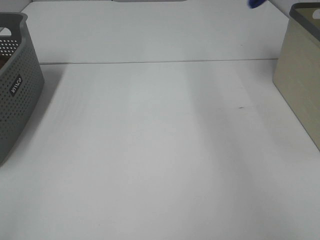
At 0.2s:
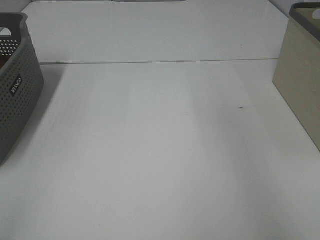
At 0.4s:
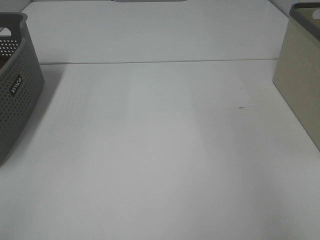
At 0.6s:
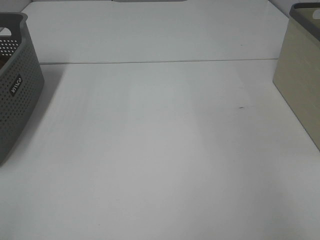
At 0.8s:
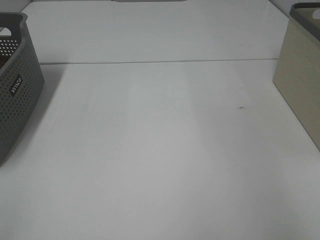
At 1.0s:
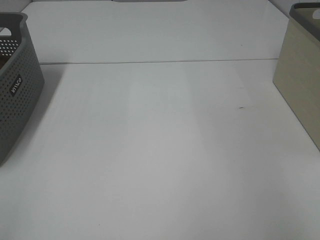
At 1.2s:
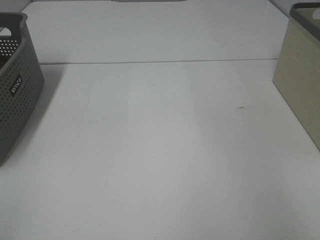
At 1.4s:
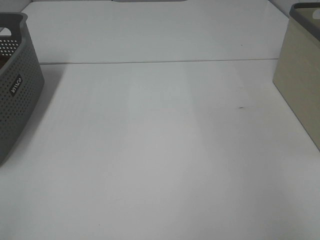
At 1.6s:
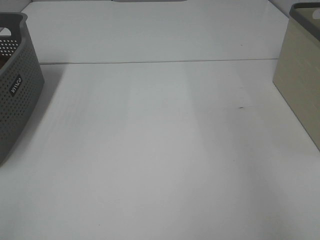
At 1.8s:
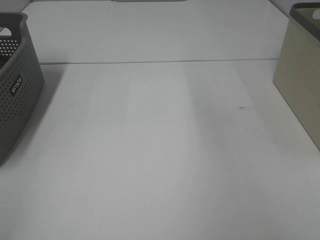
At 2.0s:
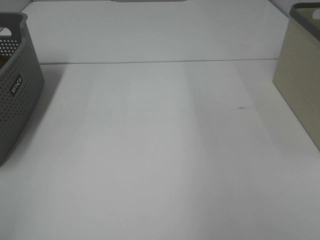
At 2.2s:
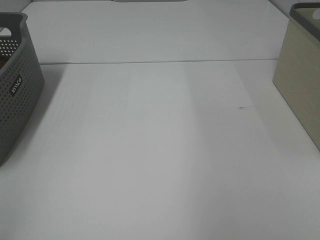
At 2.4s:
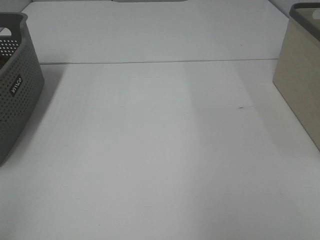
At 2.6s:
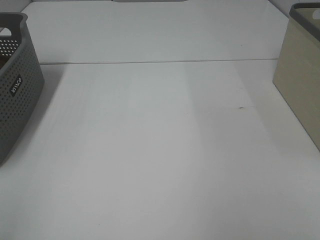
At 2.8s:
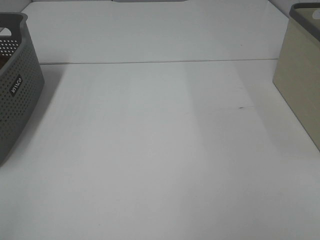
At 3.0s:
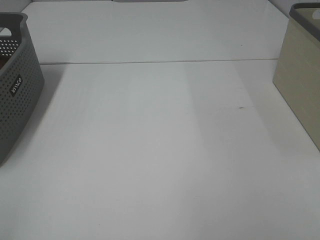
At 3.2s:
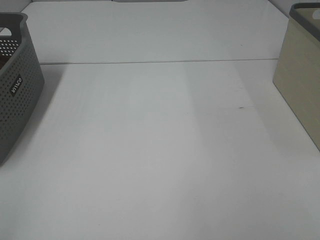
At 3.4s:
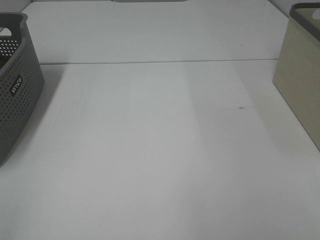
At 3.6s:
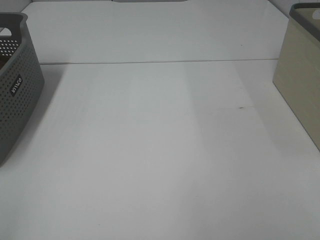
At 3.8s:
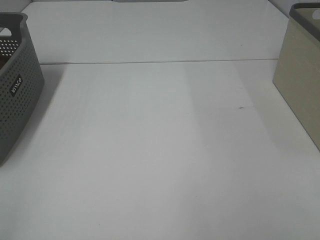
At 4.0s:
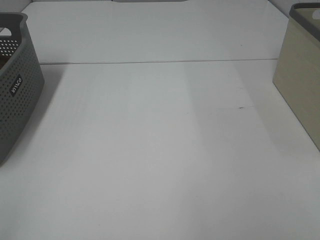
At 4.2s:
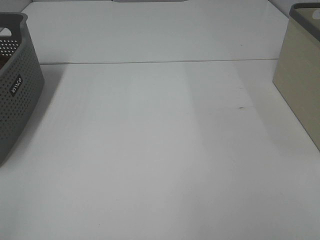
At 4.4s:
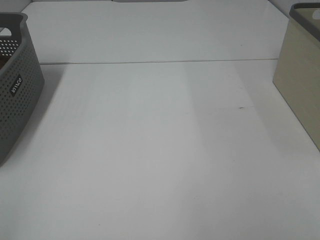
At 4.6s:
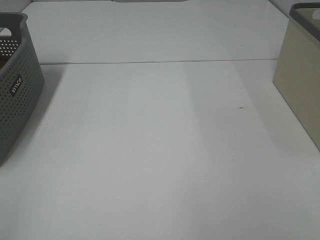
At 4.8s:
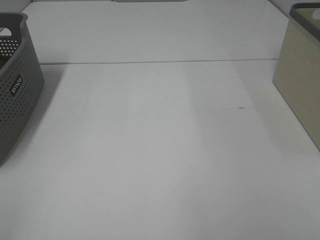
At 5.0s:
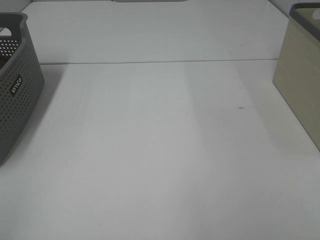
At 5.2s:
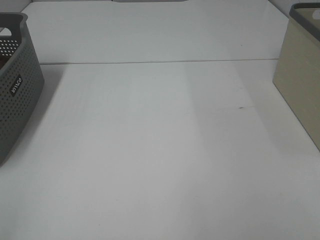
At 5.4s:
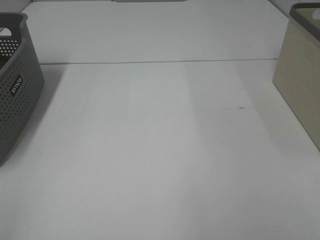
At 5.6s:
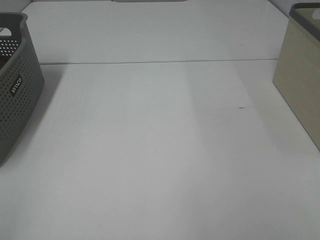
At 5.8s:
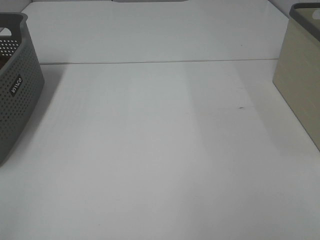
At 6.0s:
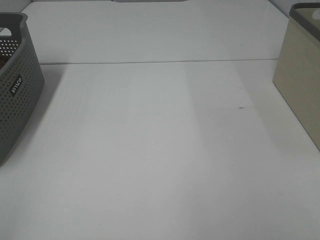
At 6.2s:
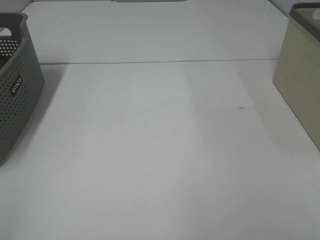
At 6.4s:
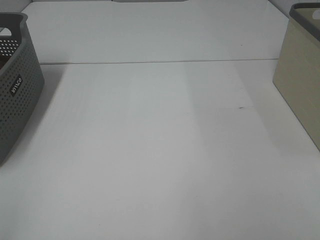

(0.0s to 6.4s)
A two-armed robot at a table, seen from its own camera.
3.2s - 6.4s: Both grippers stay about where they are.
